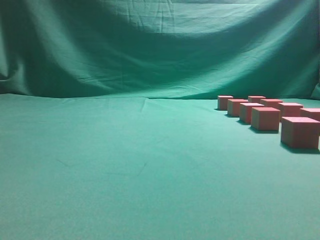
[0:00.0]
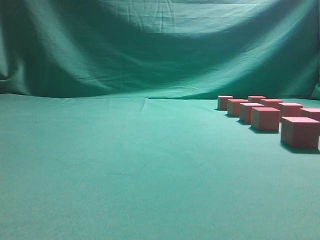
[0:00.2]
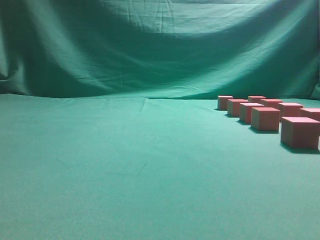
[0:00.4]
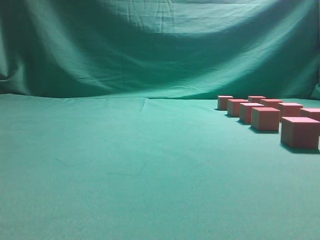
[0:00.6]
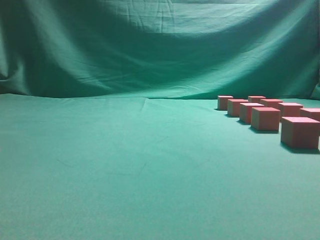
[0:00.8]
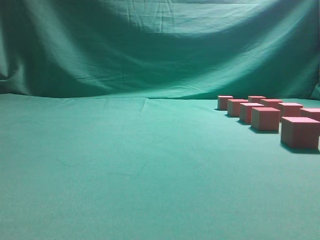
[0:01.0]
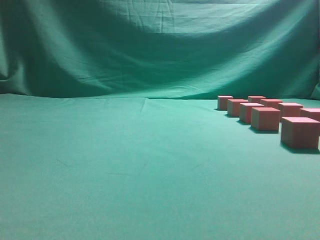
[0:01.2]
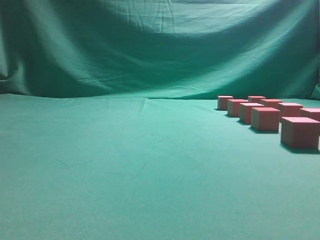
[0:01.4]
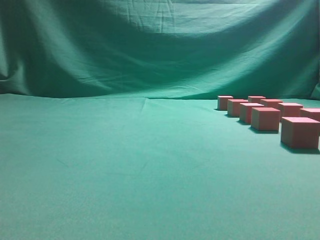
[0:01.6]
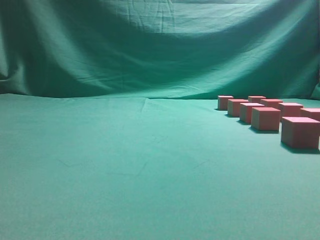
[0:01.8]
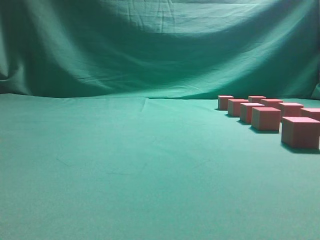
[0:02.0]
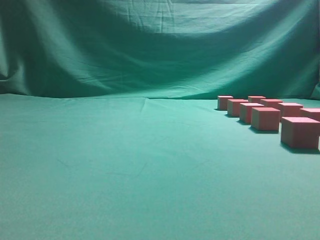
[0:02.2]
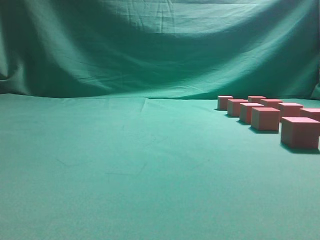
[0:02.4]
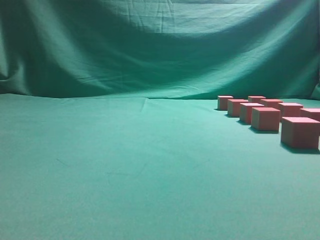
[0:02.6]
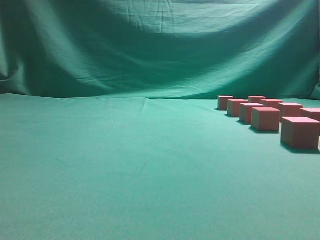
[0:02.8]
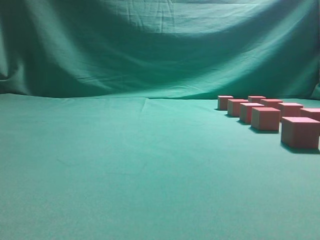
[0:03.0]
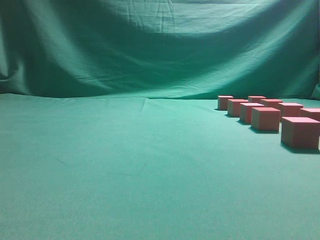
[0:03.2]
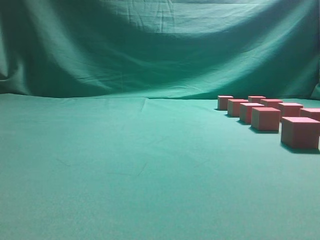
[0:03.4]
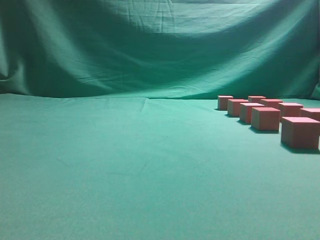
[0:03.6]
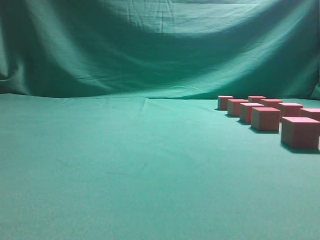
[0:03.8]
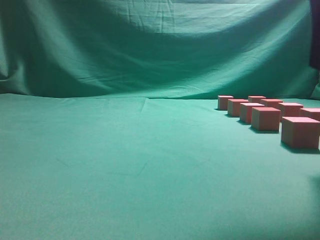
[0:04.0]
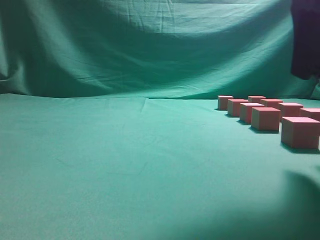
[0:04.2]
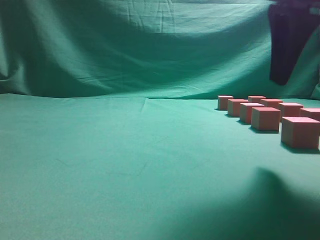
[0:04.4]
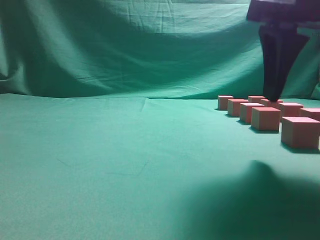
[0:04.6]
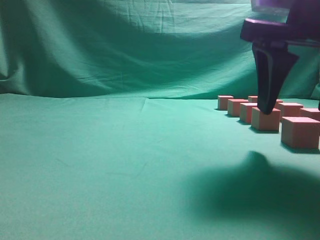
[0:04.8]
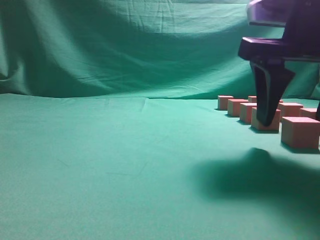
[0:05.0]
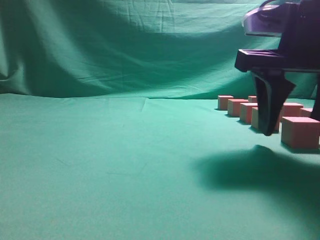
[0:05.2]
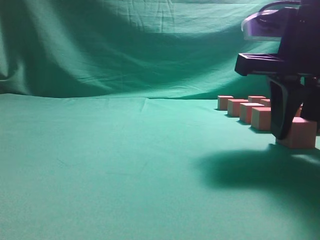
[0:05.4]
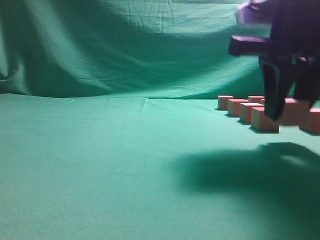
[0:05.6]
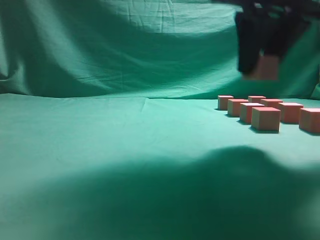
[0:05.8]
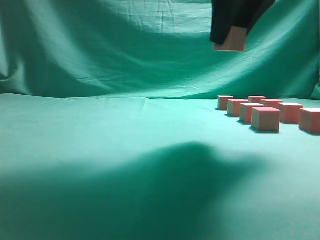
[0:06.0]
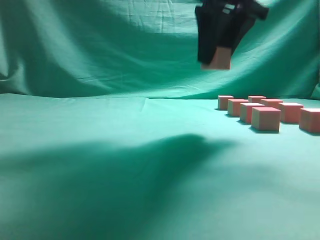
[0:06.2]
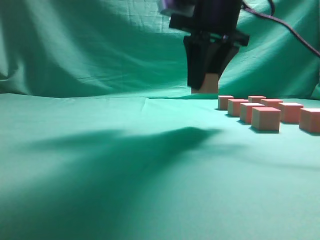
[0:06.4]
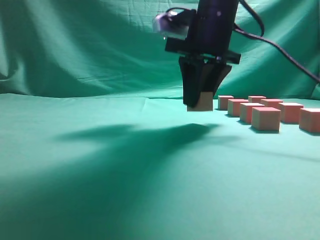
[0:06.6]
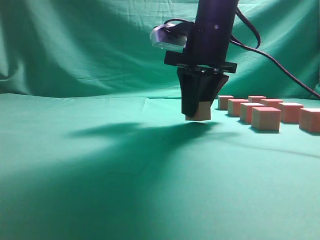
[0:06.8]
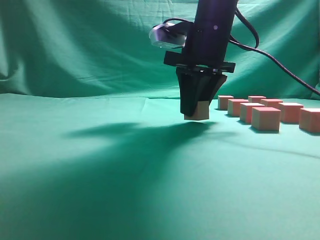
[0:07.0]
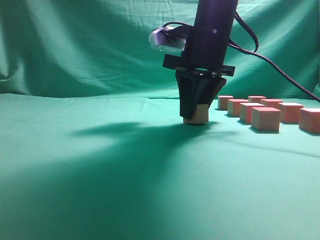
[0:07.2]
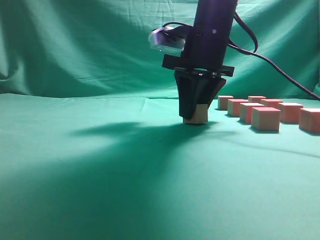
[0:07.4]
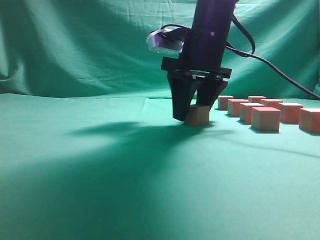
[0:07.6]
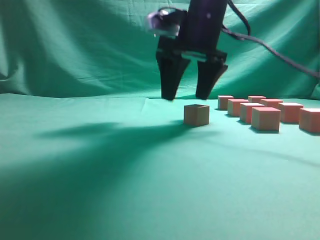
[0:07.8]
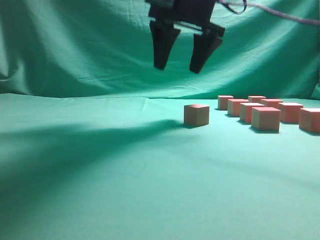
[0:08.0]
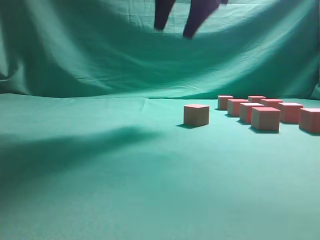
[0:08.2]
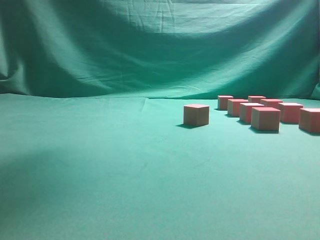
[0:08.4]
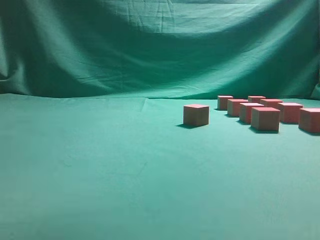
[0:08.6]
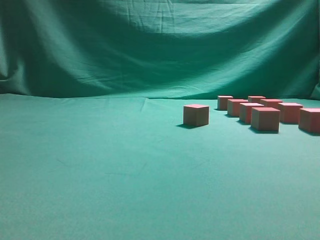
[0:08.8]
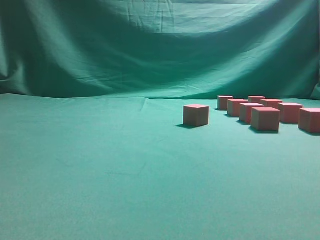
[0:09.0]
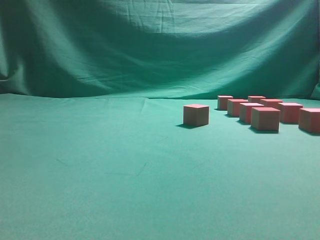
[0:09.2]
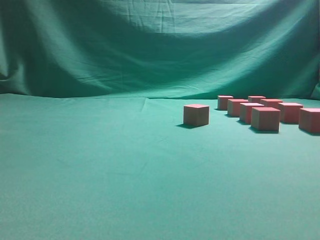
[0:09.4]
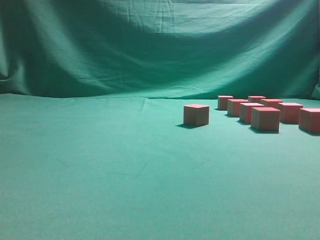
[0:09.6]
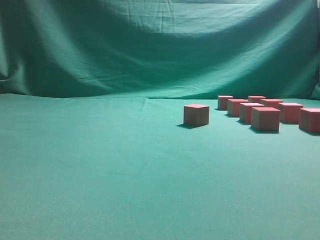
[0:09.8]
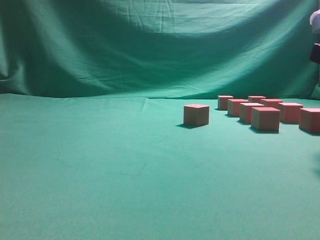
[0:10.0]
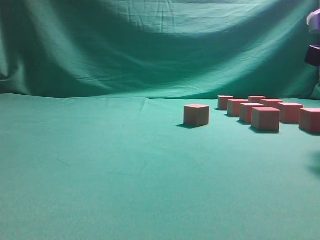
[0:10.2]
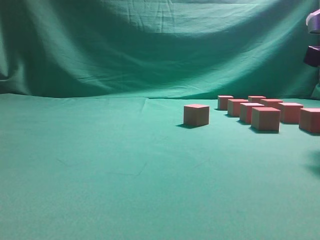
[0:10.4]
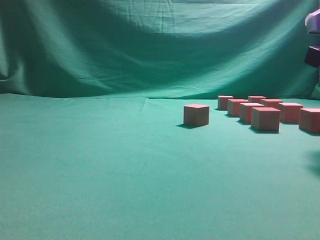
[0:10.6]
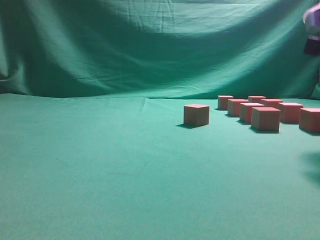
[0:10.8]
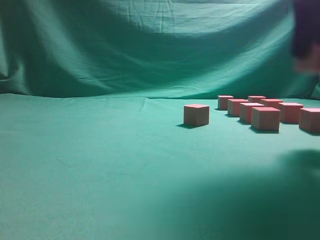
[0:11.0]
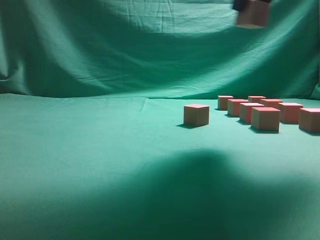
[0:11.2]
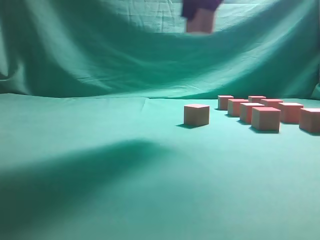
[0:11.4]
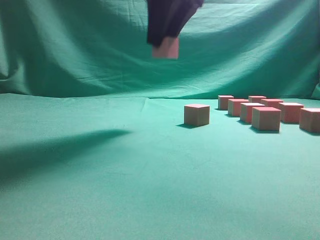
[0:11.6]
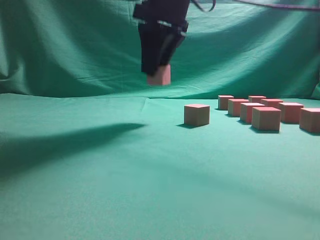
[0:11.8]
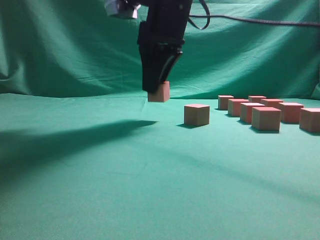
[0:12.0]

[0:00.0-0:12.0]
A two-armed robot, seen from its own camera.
Task of the whole recording: pick up the multiple cubes in two columns one by one and place them in another position on the table.
Step, 0:00.0 to 0:05.6: Pick up the block on the table.
Step, 0:05.8 to 0:07.8: Place the block at the correct position to assemble the letter S.
Step, 0:08.2 to 0:10.8: Pick up the block on the table.
0:03.0 to 0:04.4: The right gripper moves forward, downward and to the left, roughly 15 cm, and opens.
0:04.4 to 0:06.0: The right gripper heads forward, upward and to the left, covering some 10 cm, and closes up.
0:06.0 to 0:07.6: The right gripper goes roughly 15 cm downward and forward, and opens.
0:07.6 to 0:09.0: The right gripper moves backward, to the right and upward, about 30 cm.
0:09.0 to 0:10.4: The right gripper travels downward by approximately 15 cm.
0:10.4 to 0:12.0: The right gripper moves to the left and forward, roughly 25 cm.

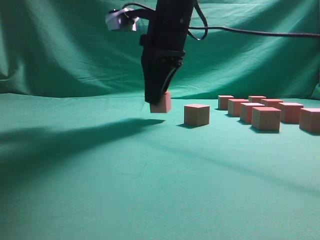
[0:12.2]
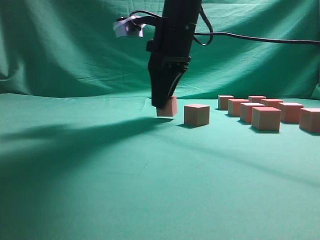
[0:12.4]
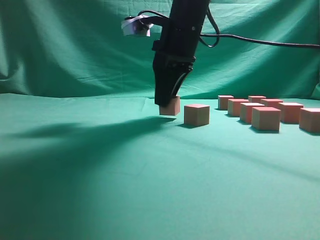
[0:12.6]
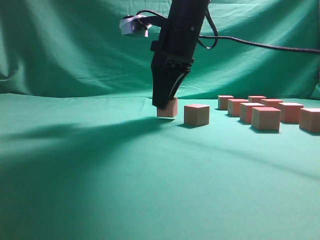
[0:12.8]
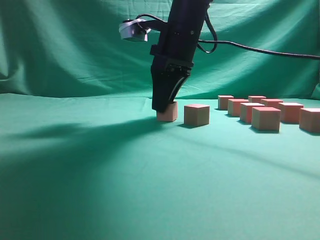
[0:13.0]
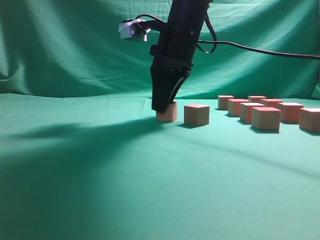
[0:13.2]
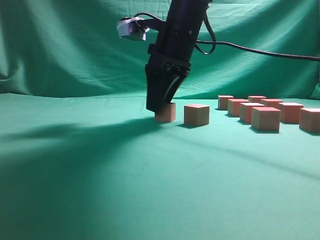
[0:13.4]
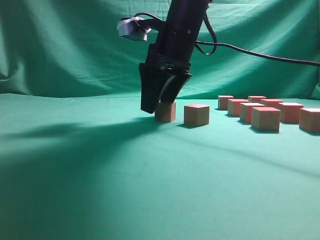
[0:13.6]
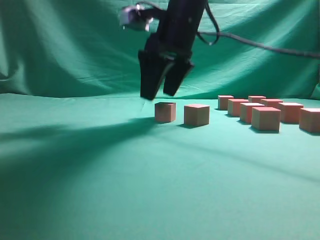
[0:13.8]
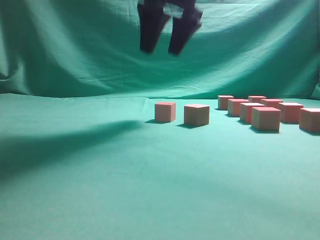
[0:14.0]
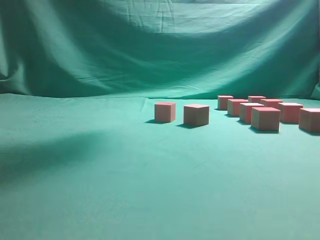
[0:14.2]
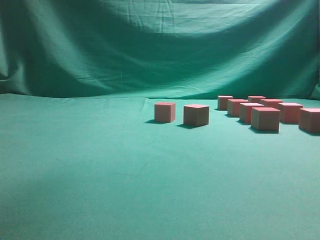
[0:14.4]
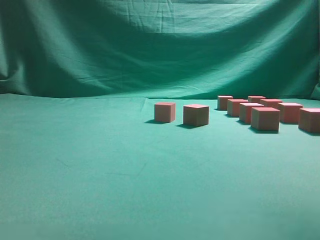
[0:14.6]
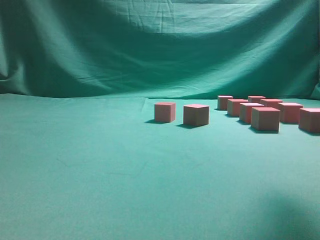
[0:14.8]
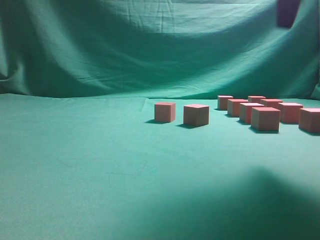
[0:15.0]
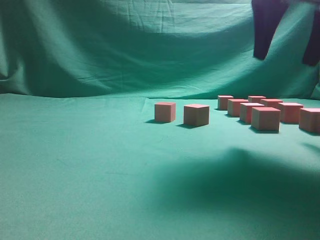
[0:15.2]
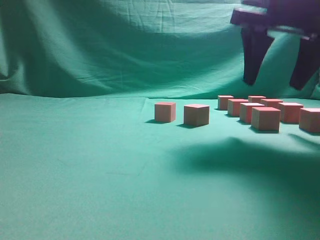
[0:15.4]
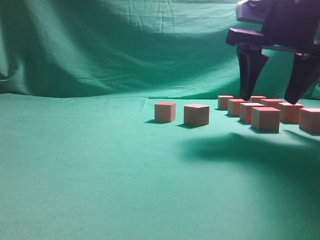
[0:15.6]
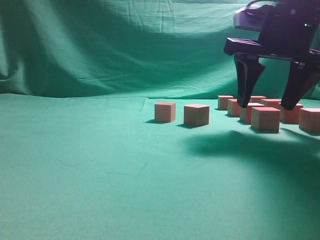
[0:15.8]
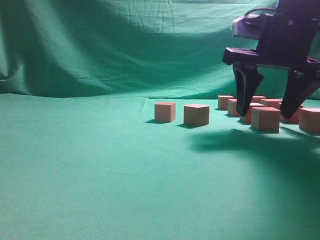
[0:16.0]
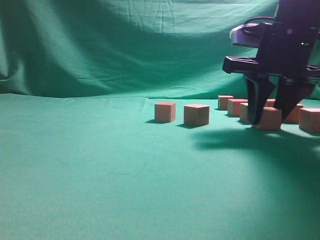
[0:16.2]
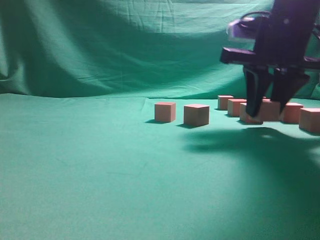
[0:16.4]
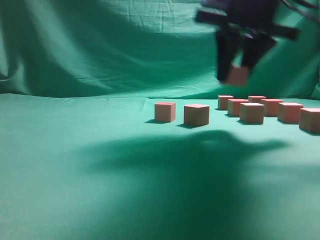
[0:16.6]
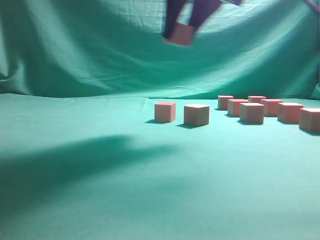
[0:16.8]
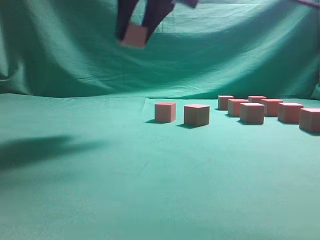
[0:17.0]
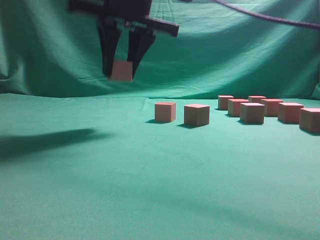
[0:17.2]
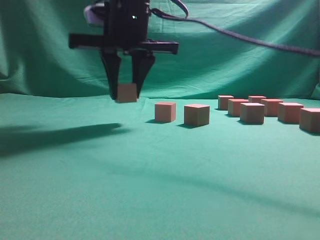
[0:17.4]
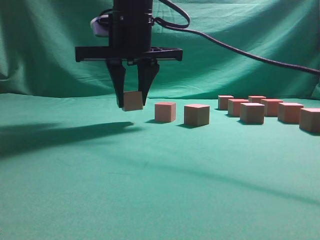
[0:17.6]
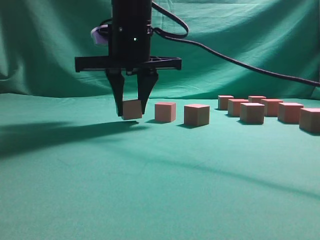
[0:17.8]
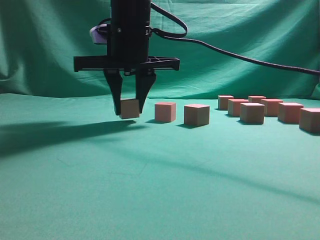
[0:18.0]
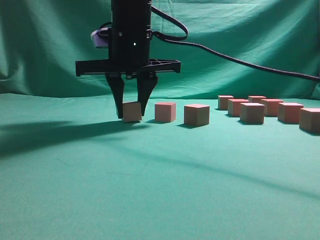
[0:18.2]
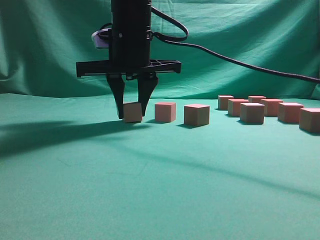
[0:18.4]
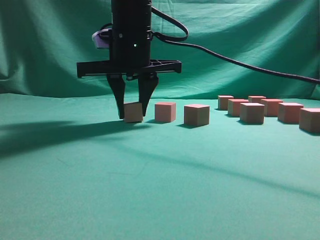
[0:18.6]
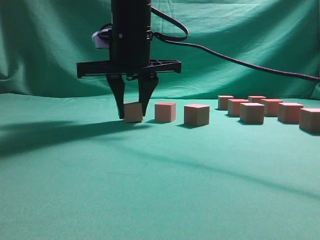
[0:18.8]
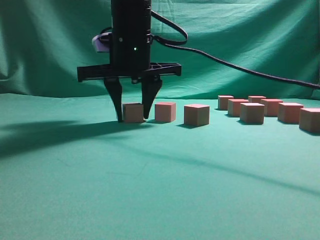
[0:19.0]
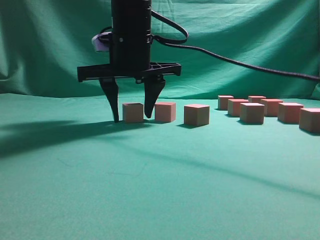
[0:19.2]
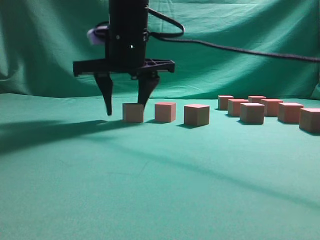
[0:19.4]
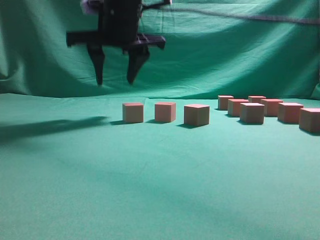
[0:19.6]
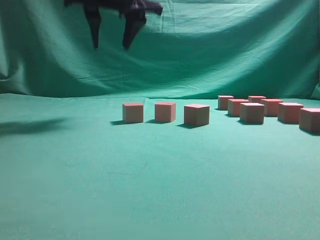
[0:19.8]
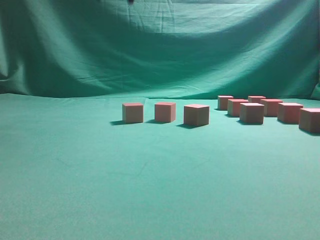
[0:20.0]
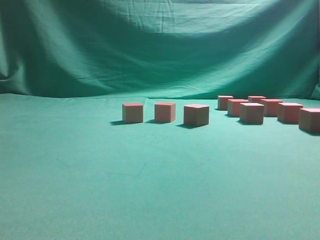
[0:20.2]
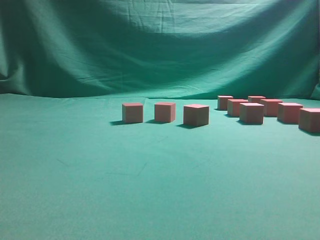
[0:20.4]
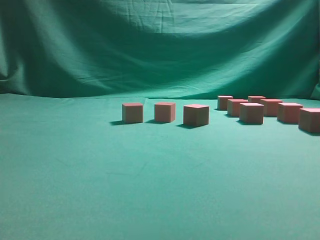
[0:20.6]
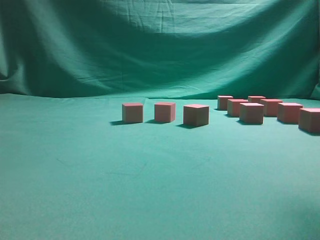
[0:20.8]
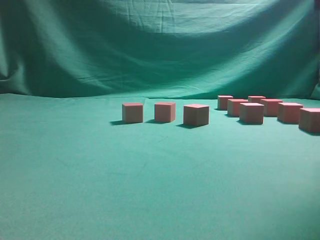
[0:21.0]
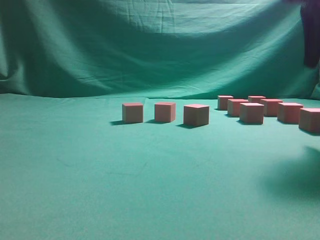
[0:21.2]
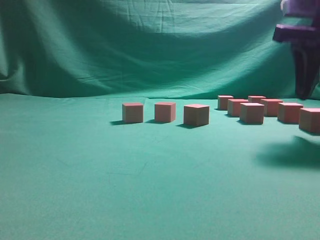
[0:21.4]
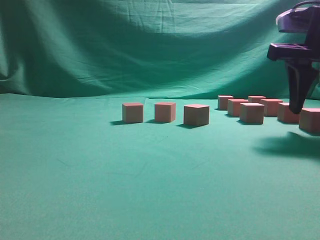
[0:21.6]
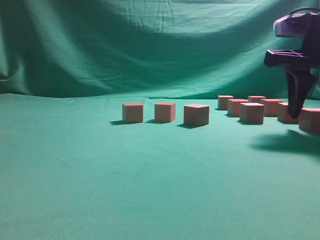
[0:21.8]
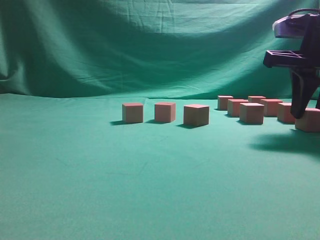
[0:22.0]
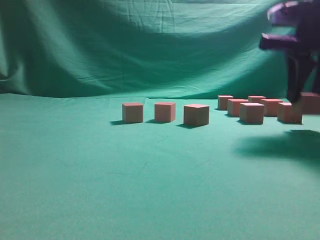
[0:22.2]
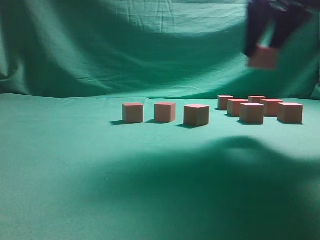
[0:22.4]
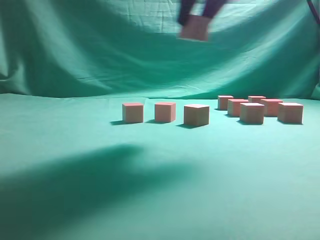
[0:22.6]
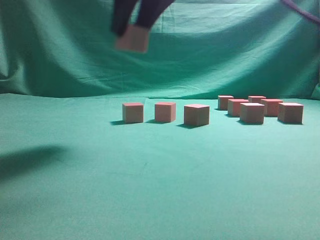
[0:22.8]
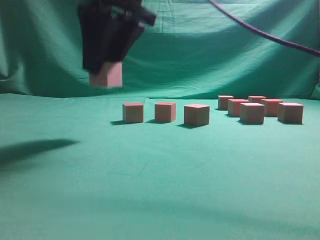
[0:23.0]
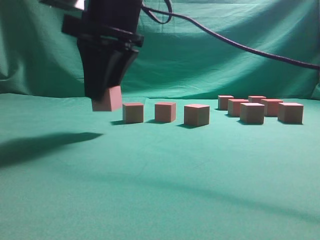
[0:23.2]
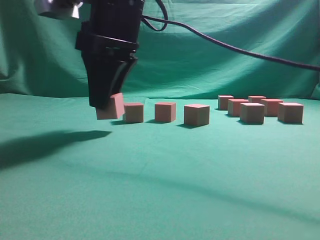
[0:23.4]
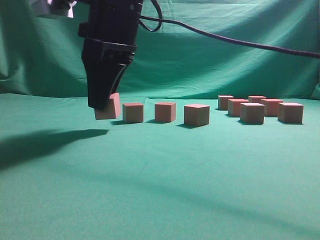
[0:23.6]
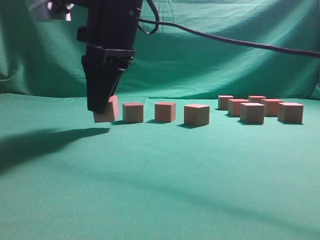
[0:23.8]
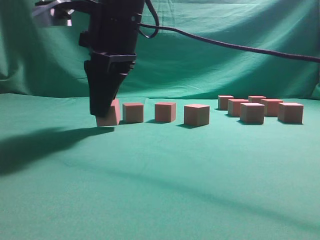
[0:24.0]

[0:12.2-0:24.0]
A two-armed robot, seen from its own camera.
Task of the whole recording: pick up the multiple cubes in two columns one by one and place them in another position on the table.
Step, 0:12.2 to 0:13.8: Place the block at the correct position to assemble the letter S.
Step, 0:14.0 to 0:16.4: Pick up the block on the table.
Step, 0:16.6 to 0:19.6: Place the block at the correct position to assemble the letter S.
Step, 0:19.8 to 0:22.2: Pick up the block on the table.
0:12.2 to 0:13.6: The right gripper opens up.
0:13.6 to 0:15.2: The right gripper moves to the right and backward, some 20 cm, and goes upward and returns, some 25 cm each way.
0:15.2 to 0:16.6: The right gripper heads to the left, covering some 5 cm, moves some 10 cm downward and comes back, and closes its fingers.
0:16.6 to 0:18.2: The right gripper shifts some 15 cm to the left.
0:18.2 to 0:19.6: The right gripper changes place by some 5 cm.
0:19.6 to 0:21.0: The right gripper shifts about 30 cm to the right and backward.
0:21.0 to 0:22.6: The right gripper is displaced to the left by some 15 cm.
0:22.6 to 0:24.0: The right gripper goes some 15 cm to the left and downward.
